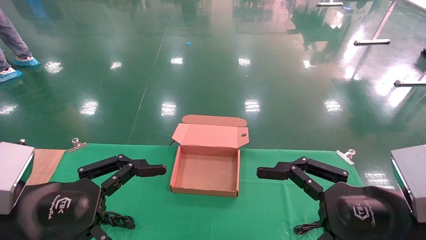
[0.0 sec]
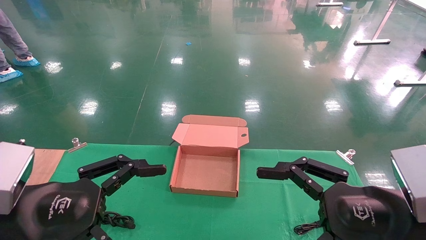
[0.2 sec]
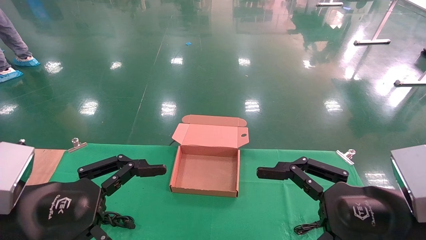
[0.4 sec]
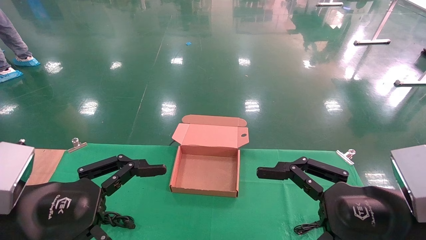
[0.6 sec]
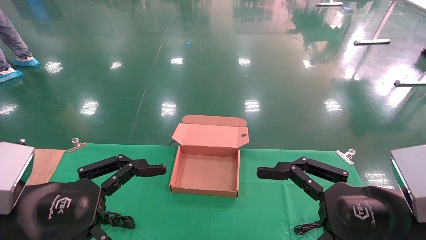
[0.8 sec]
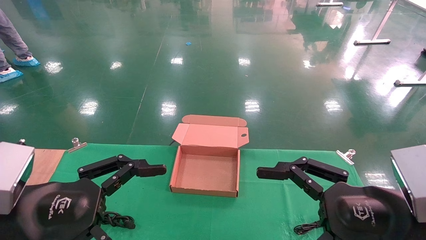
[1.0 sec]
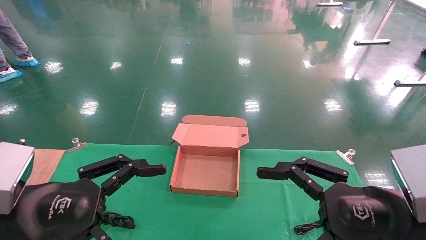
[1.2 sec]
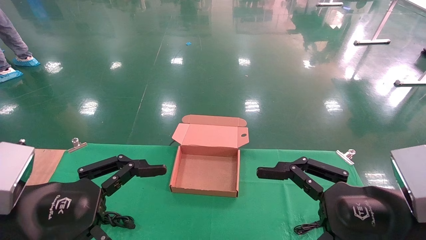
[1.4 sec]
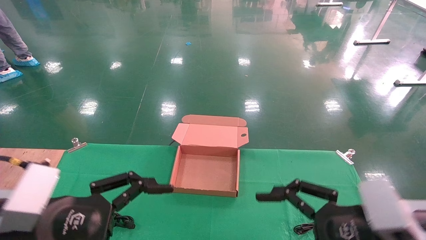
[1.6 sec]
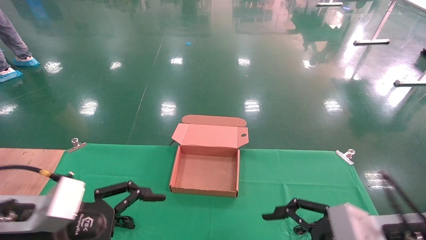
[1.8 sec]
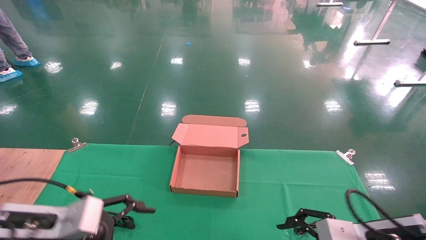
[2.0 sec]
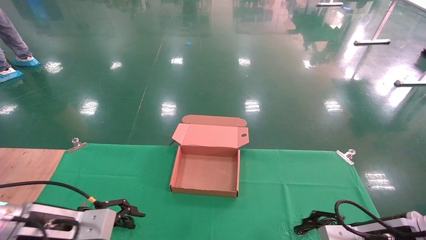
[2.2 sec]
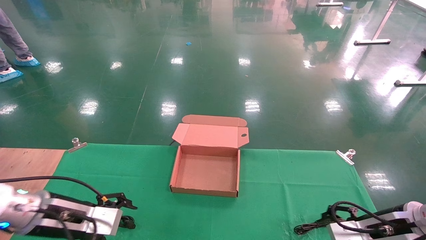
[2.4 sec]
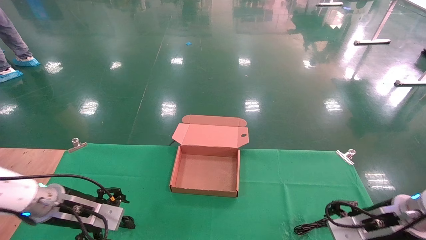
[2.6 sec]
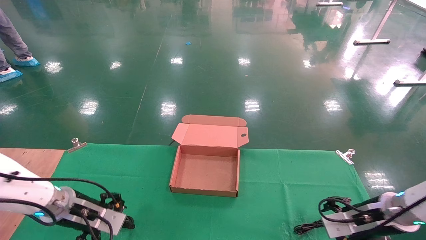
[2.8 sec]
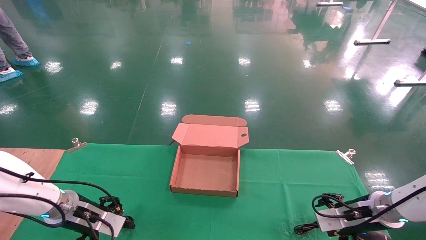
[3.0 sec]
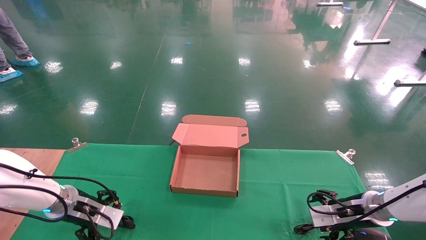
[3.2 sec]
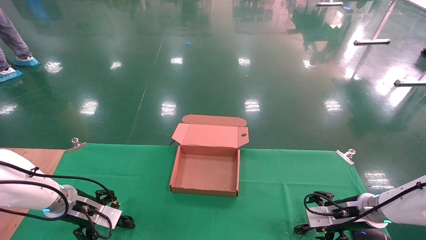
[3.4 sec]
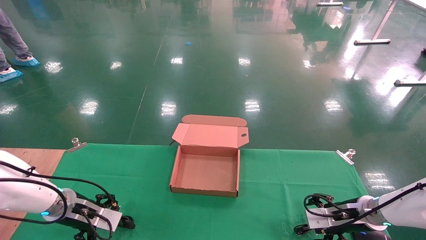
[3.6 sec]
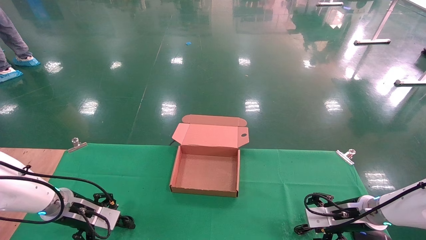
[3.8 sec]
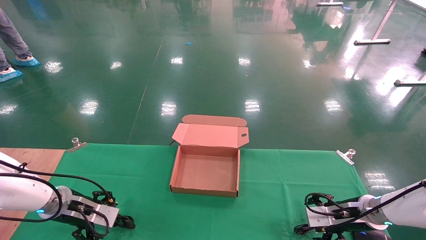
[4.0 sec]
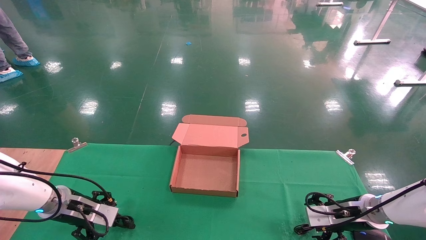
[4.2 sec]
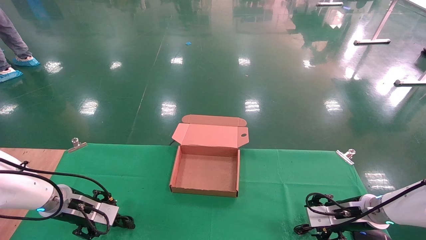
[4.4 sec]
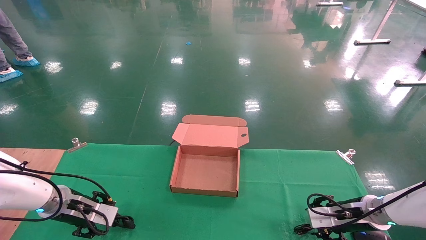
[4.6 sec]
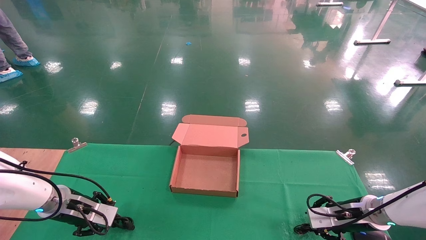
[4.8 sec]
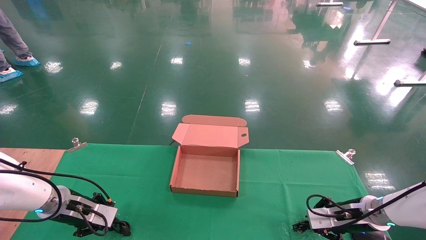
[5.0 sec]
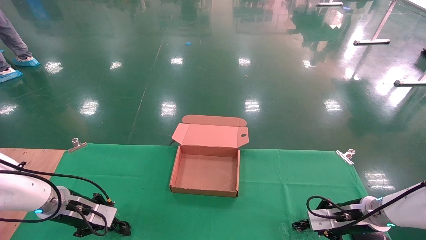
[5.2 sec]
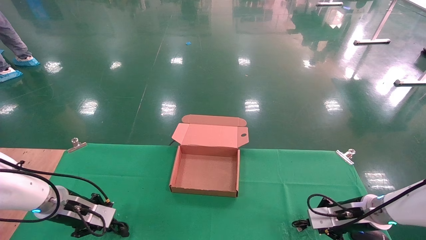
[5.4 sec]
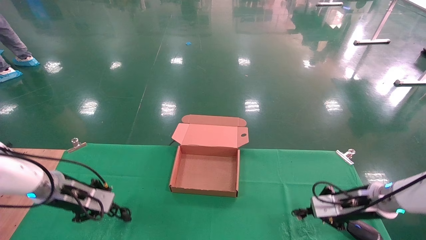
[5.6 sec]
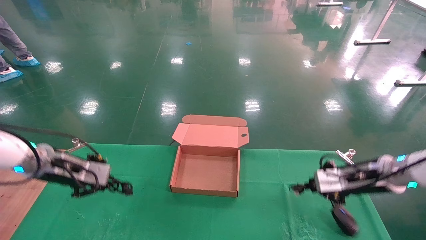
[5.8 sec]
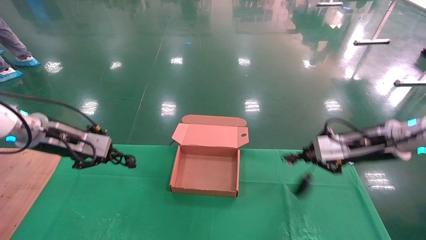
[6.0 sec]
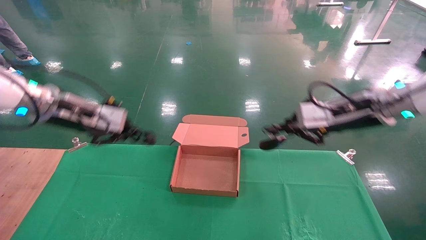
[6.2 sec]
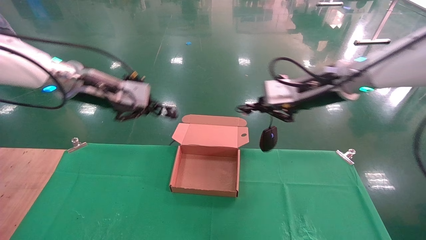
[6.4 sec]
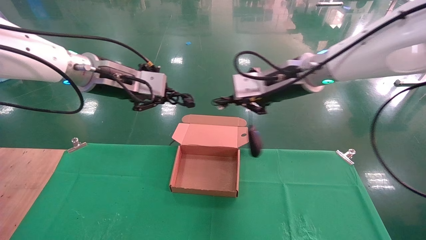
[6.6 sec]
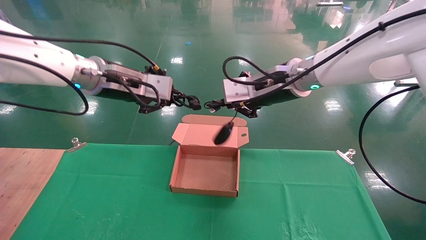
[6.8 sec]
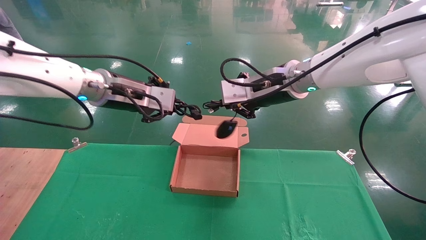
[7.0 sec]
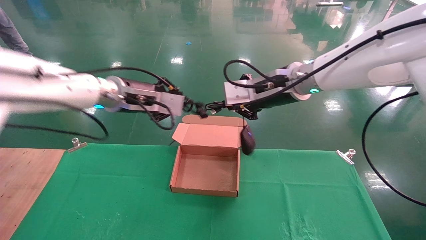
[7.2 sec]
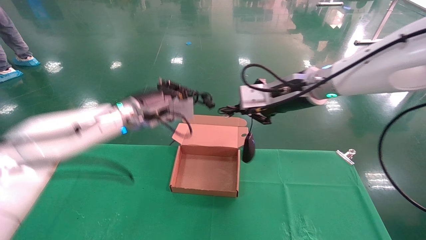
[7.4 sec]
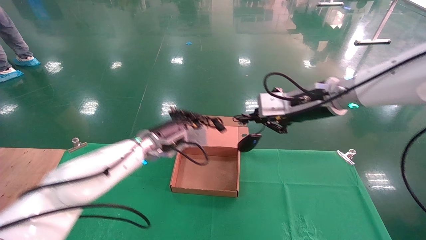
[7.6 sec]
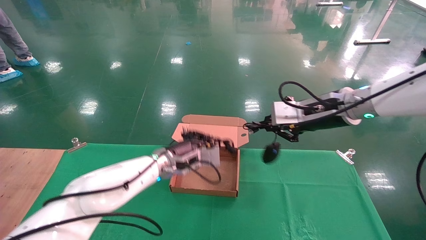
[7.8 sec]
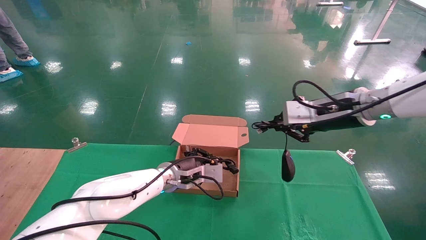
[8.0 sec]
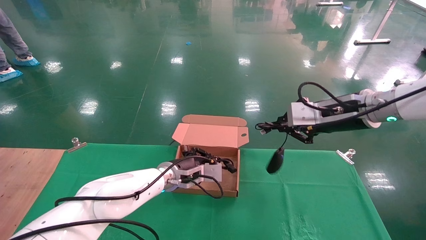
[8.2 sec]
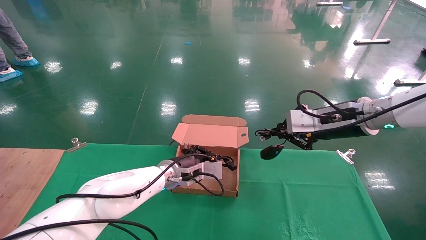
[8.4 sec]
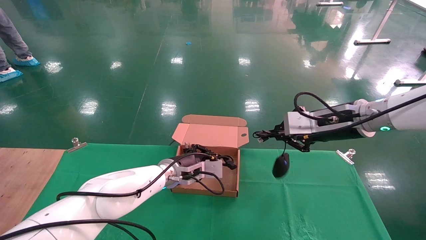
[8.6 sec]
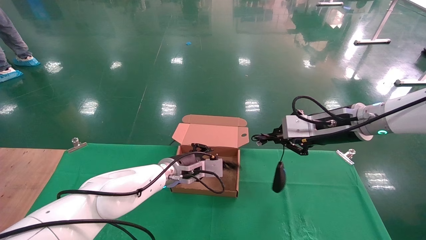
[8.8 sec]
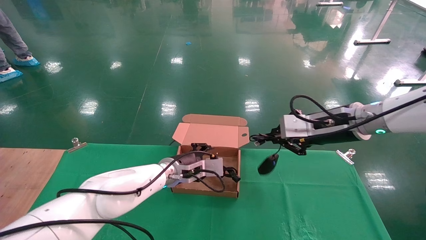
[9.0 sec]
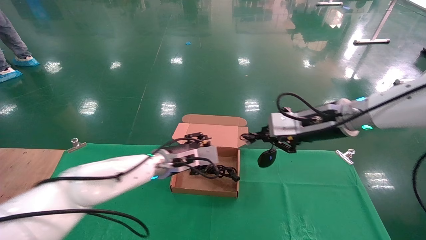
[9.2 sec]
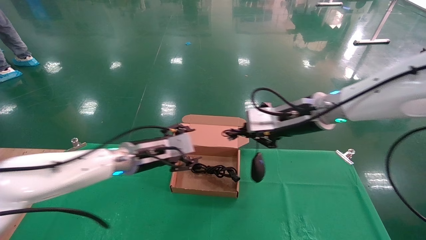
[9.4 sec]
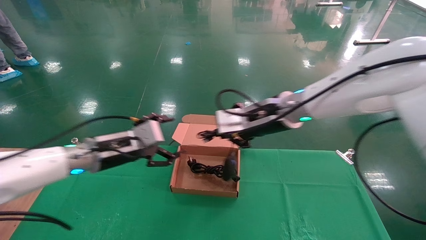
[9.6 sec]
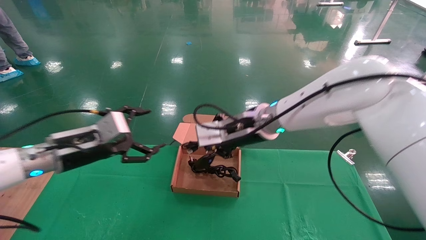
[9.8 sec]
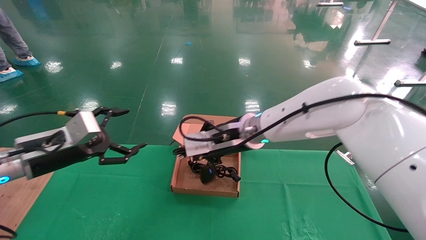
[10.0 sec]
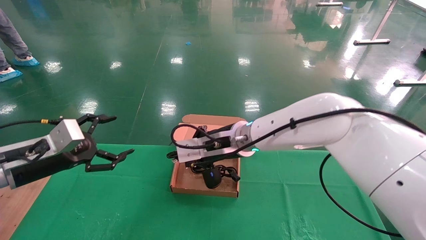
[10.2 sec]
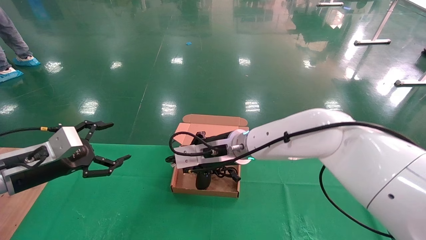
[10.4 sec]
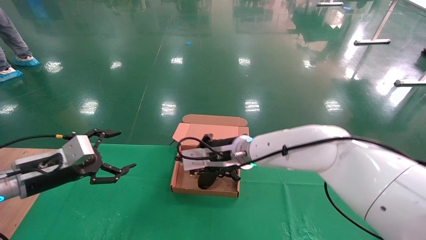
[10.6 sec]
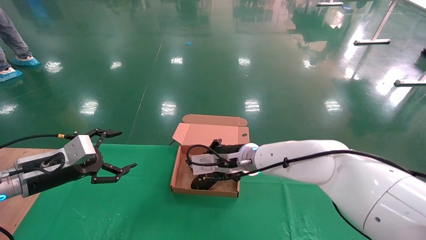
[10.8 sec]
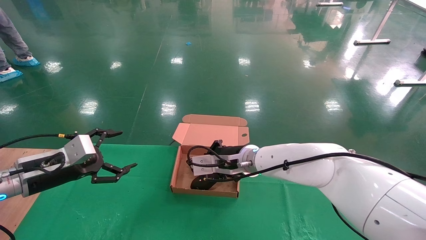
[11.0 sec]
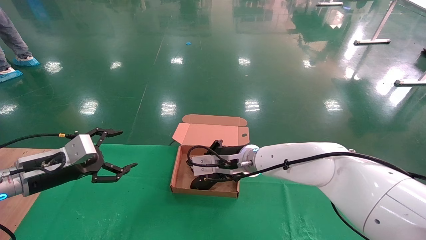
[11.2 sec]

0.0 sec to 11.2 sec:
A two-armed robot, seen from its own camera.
Step, 2.2 sec to 6.4 sec: Grab and lift both the mouse and power cord from the accessory packaging area at the same time.
0.0 sec to 1.6 sec: There are only small adjustments of the grippers.
1.6 sec to 3.2 sec: The grippers both shift forward and downward by approximately 25 cm.
3.2 sec to 4.8 sec: The left gripper closes up. Meanwhile the right gripper closes.
4.8 sec to 6.4 sec: The left gripper moves upward, roughly 25 cm, and closes. Meanwhile the right gripper goes approximately 30 cm upward and to the left, and closes up.
6.4 sec to 8.0 sec: The left gripper shifts about 25 cm downward and to the right, while the right gripper changes place by roughly 5 cm.
8.0 sec to 9.6 sec: The right gripper is displaced to the left by approximately 15 cm. The left gripper is displaced to the left, backward and upward by roughly 15 cm, and opens.
9.6 sec to 11.2 sec: The right gripper travels downward and to the left by roughly 15 cm. The left gripper goes approximately 15 cm to the left.

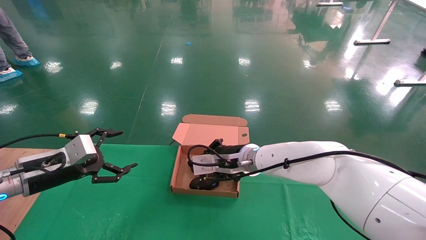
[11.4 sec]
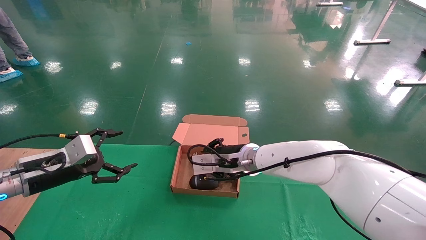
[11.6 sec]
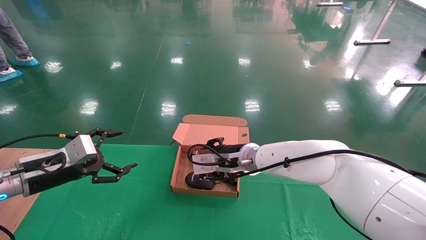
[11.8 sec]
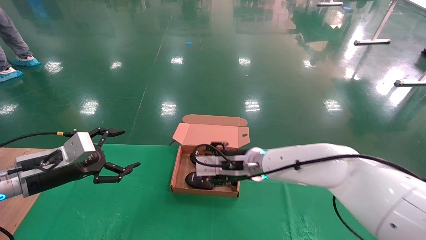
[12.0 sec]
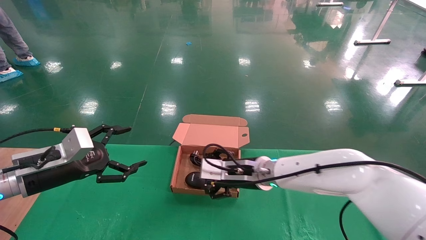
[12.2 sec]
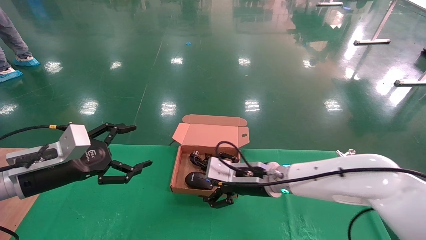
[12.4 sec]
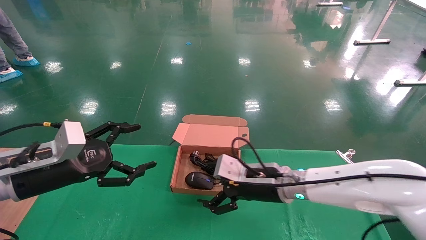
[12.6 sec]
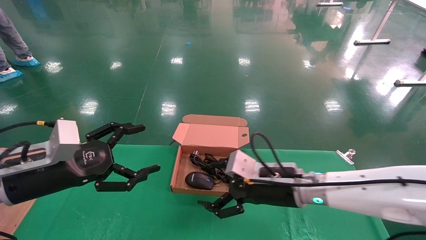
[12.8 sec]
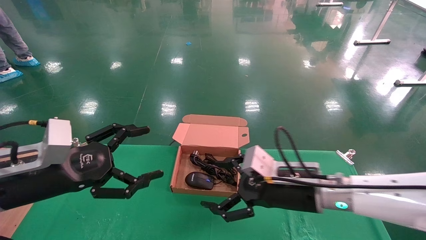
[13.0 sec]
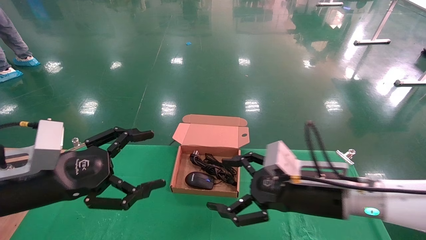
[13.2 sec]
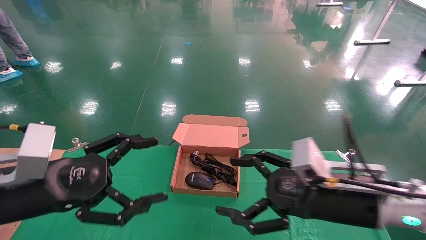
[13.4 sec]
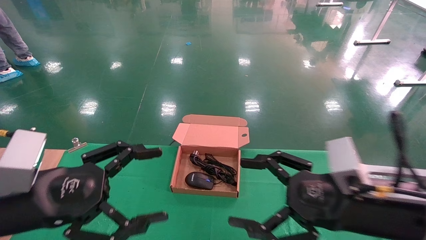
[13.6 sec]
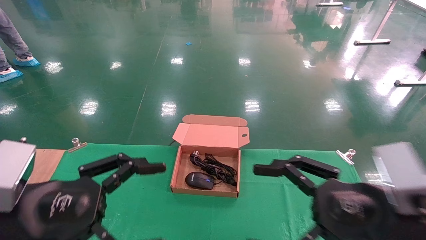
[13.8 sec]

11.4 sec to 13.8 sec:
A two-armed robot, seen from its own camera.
11.4 sec to 12.6 sec: The right gripper travels backward and to the right by approximately 10 cm, and opens its fingers. The left gripper heads backward, covering some 5 cm.
12.6 sec to 13.8 sec: The right gripper travels backward and to the right by some 20 cm. Meanwhile the left gripper heads backward and to the right, covering some 15 cm.
